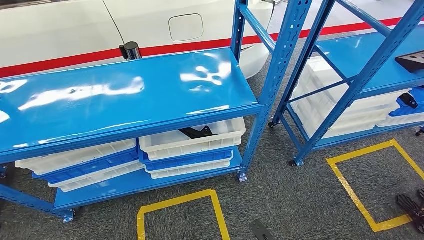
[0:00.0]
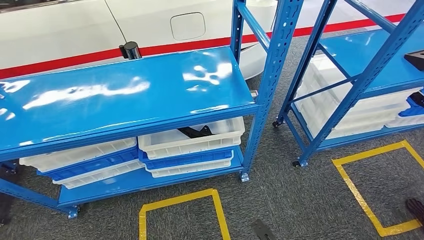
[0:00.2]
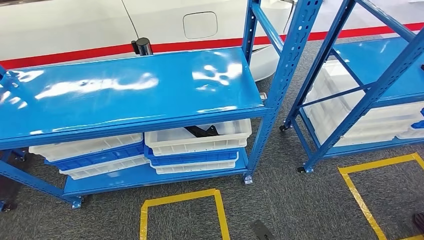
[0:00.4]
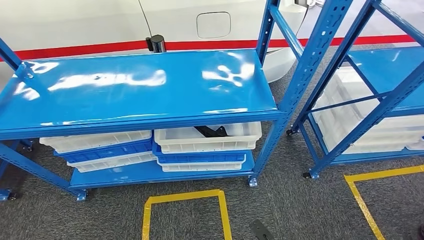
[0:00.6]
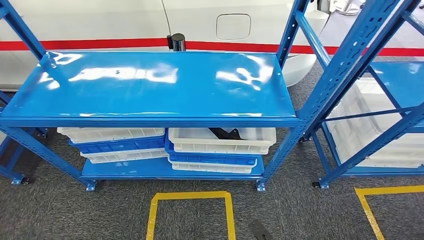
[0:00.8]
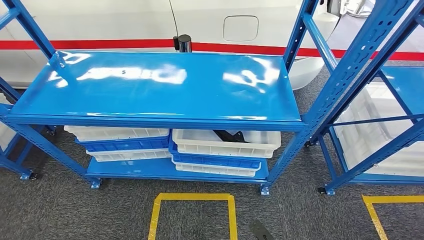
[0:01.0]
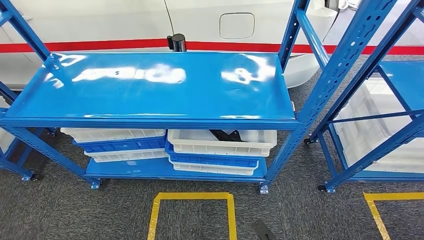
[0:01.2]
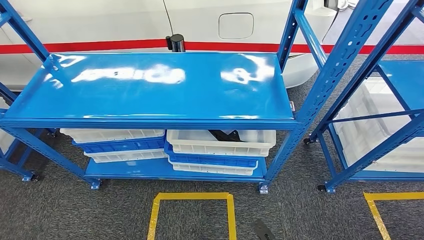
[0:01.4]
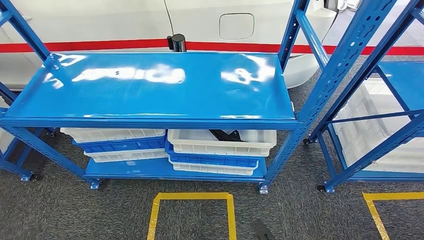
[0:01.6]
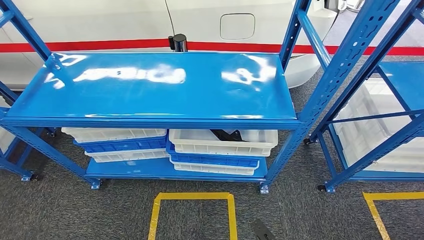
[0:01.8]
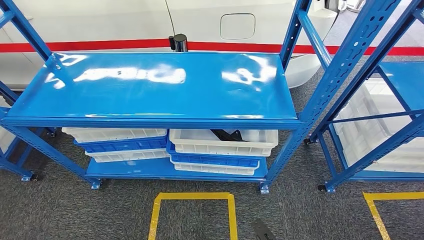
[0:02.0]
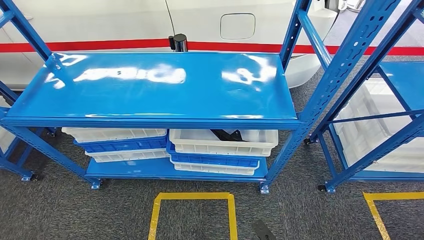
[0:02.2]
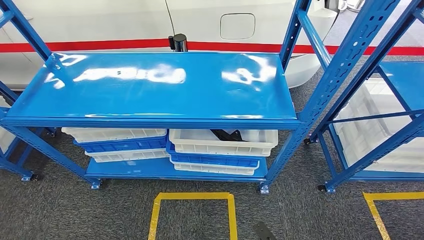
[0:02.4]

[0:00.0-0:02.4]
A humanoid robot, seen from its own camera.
Step, 0:00.0 to 0:02.4: Move to the initial position of the shelf.
0:01.2 to 0:02.4: There are only small adjustments of the hands.

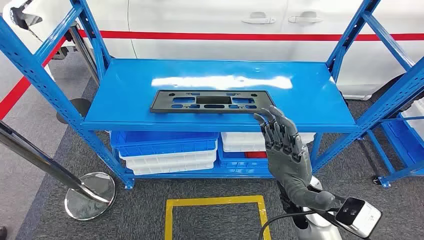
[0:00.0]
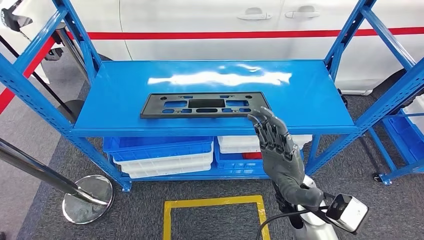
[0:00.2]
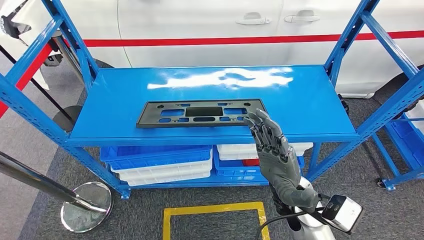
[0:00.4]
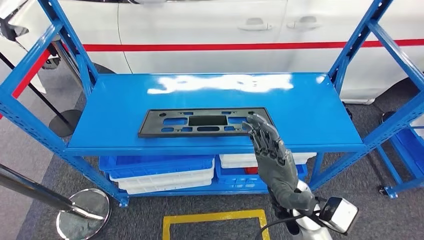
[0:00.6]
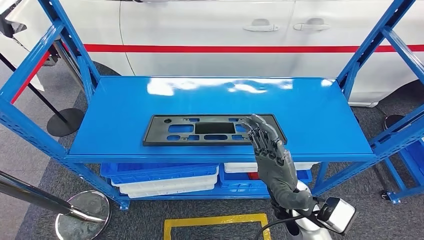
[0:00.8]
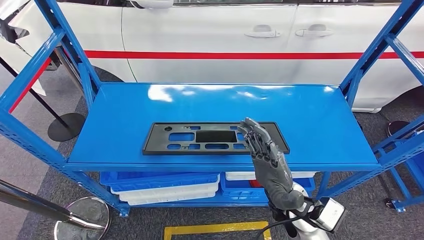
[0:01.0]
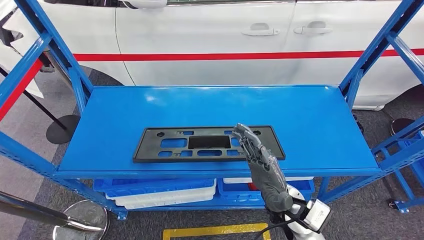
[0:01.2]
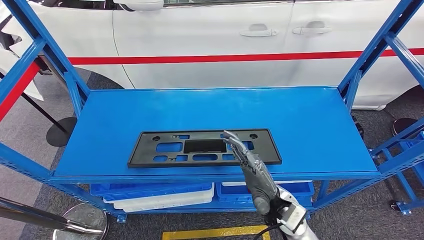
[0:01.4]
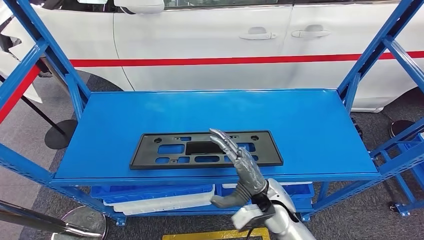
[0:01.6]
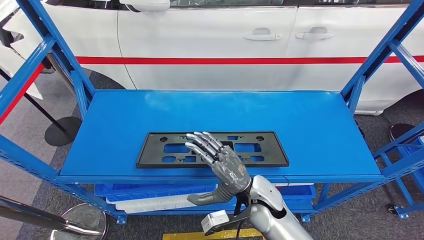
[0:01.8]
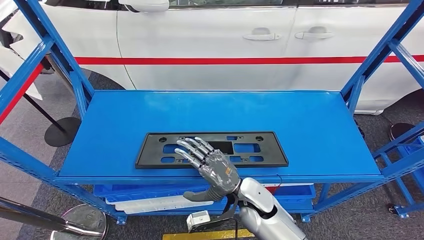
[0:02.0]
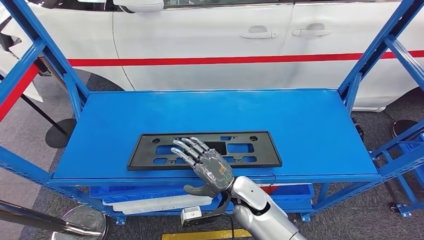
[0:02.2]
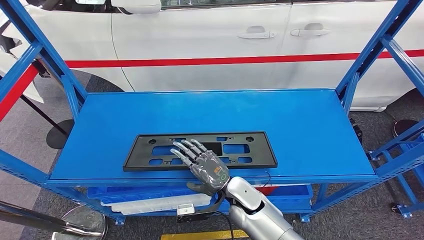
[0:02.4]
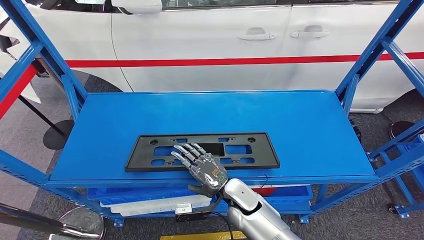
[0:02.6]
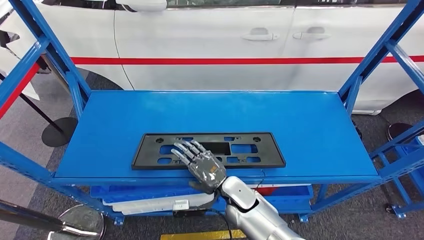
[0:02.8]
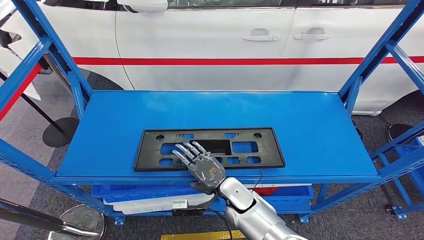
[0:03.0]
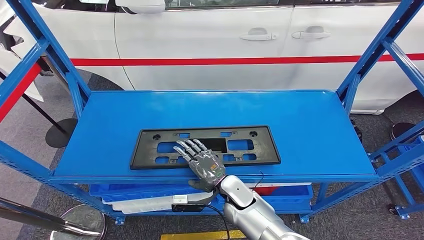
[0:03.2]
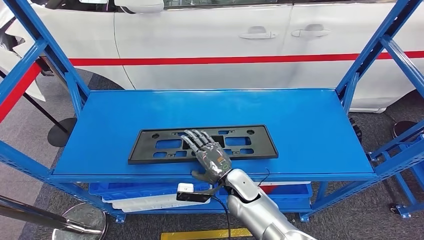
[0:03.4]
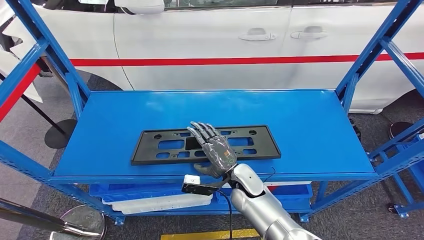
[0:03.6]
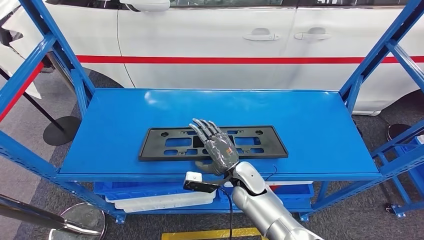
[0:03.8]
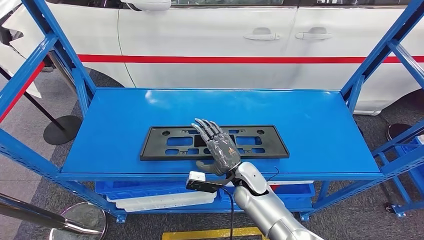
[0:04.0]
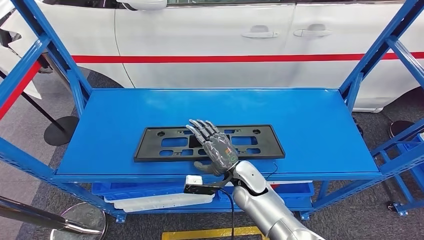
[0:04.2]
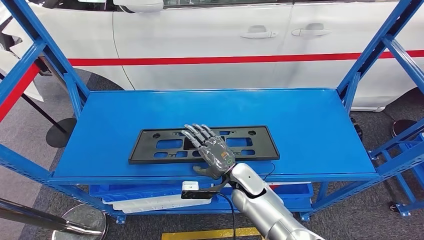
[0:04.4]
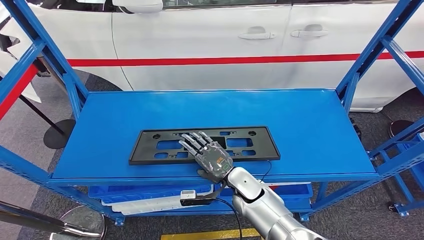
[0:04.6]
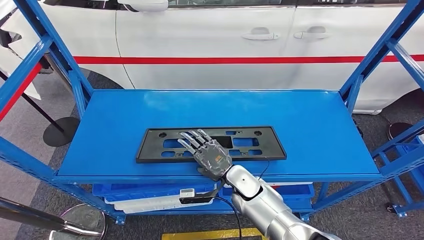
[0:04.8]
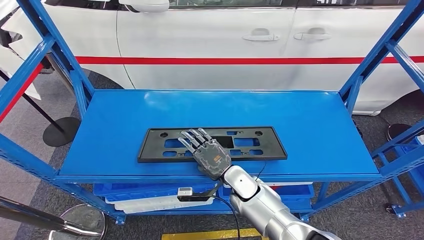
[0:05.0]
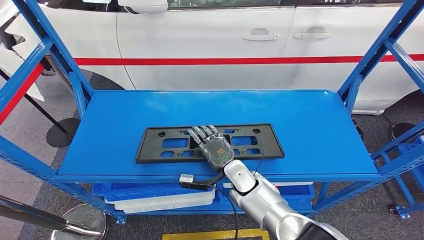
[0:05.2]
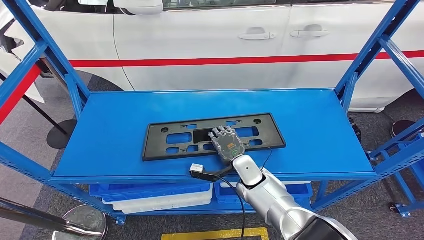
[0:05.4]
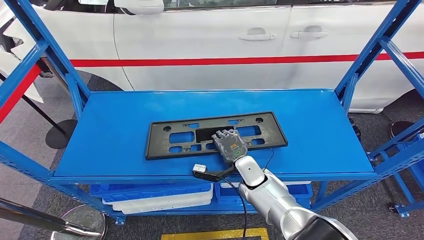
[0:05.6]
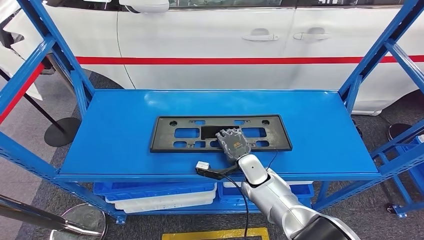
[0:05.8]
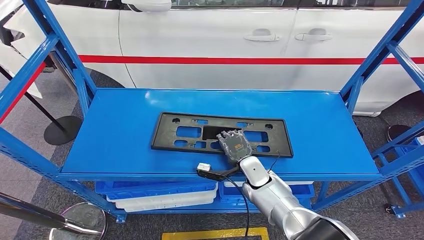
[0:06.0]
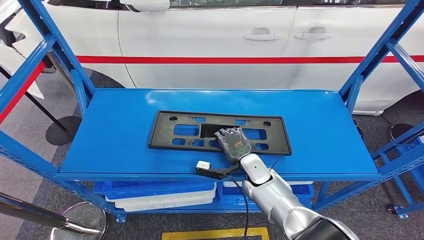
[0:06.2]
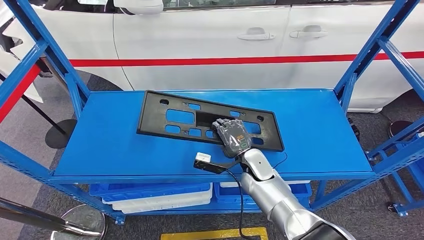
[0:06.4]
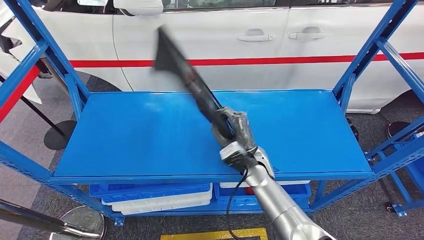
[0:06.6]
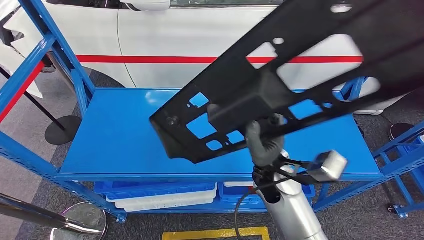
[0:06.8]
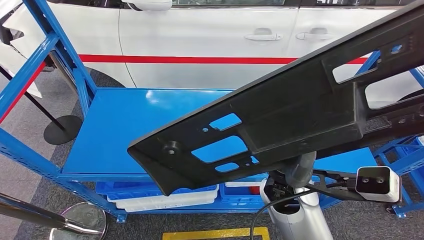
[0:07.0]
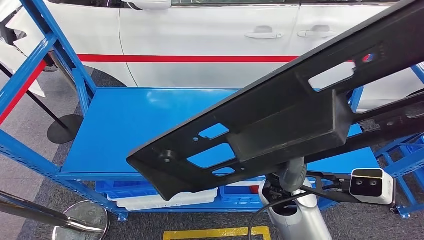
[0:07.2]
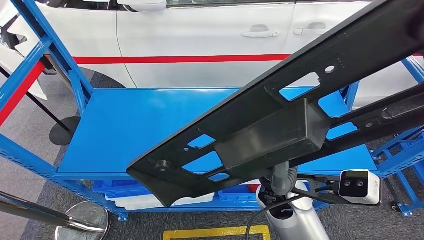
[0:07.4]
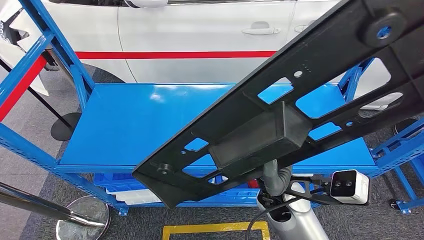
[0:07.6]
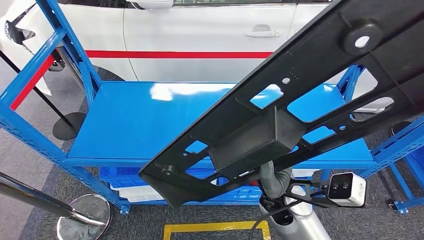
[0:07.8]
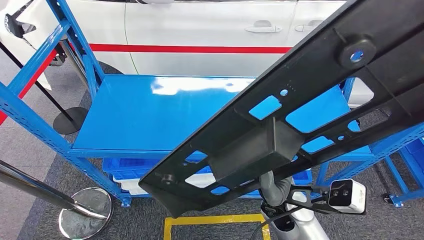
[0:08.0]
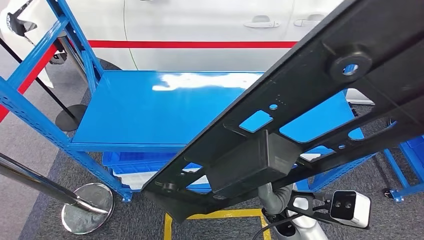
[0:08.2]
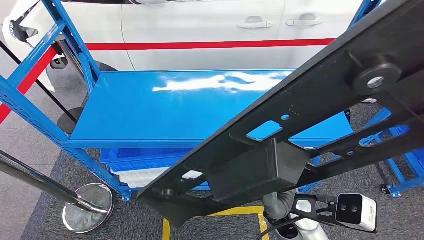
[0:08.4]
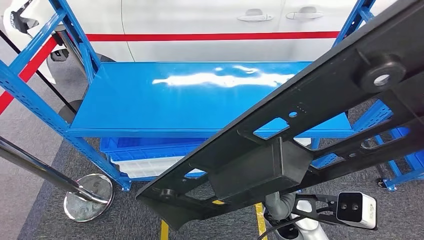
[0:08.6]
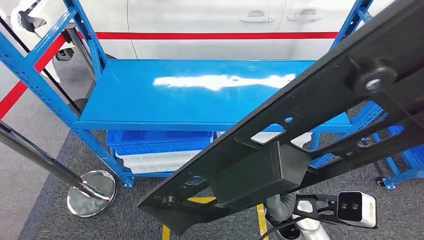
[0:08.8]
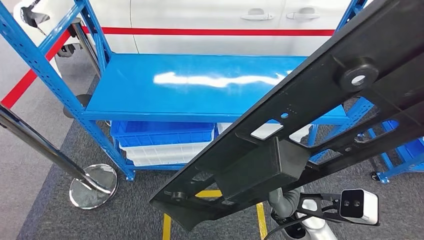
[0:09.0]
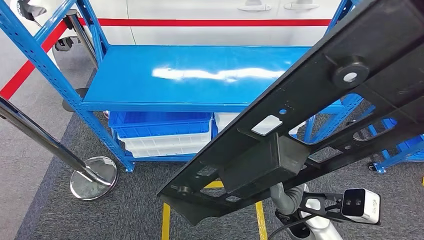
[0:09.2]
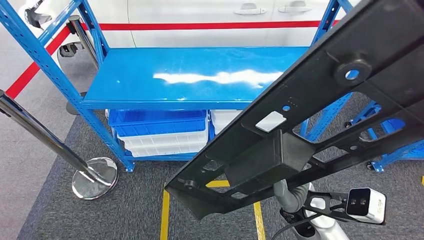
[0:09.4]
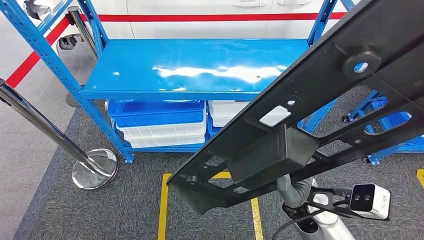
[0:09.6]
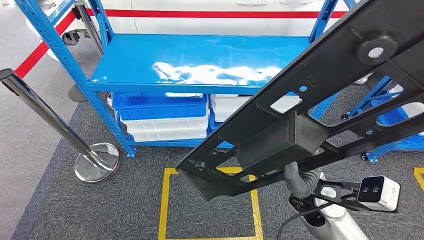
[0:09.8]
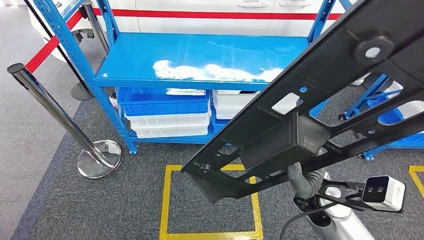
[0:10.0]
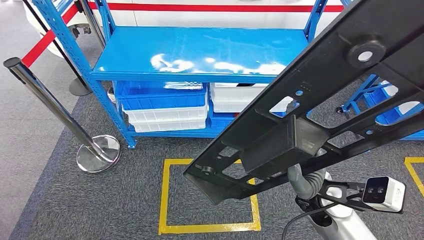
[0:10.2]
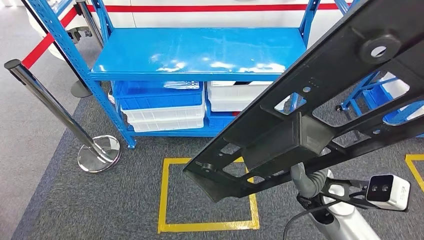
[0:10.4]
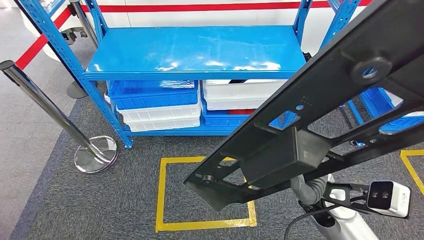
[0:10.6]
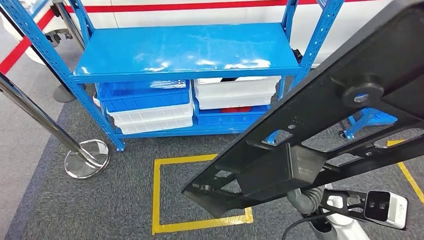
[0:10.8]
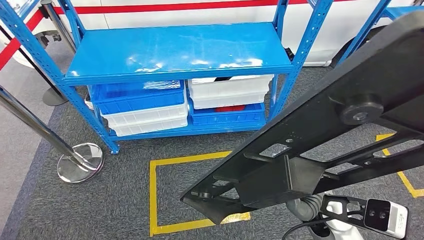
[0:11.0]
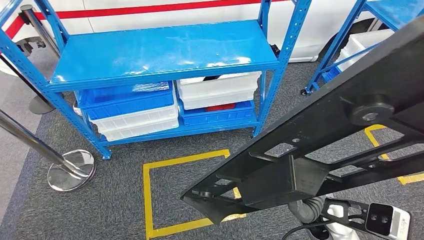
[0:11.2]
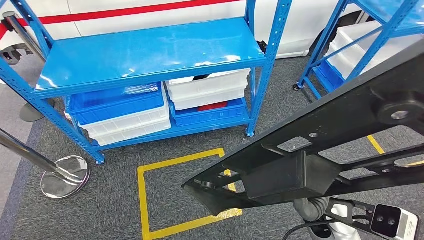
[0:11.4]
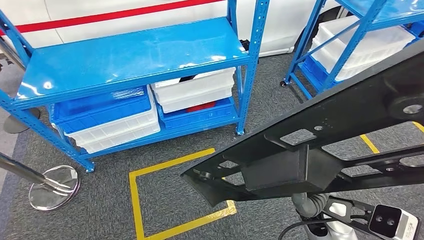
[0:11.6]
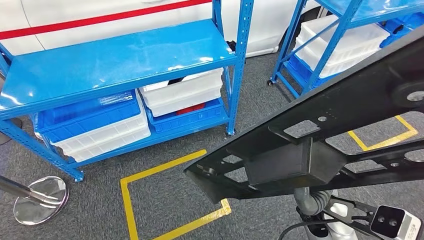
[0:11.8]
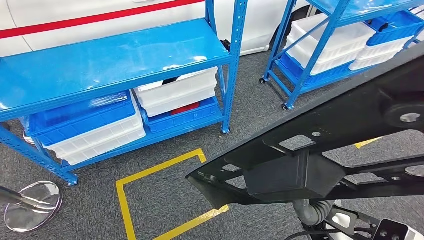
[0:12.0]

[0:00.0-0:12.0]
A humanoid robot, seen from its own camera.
Step, 0:00.0 to 0:06.4: Pick up the large material from the shelf.

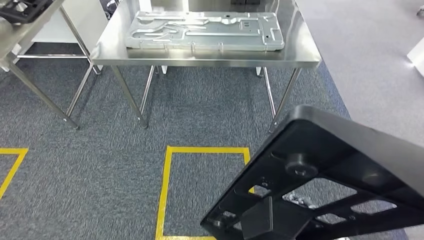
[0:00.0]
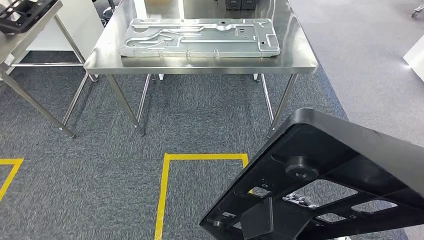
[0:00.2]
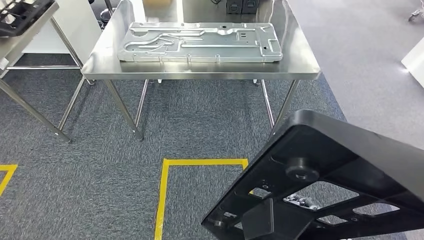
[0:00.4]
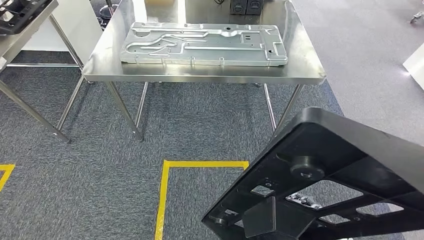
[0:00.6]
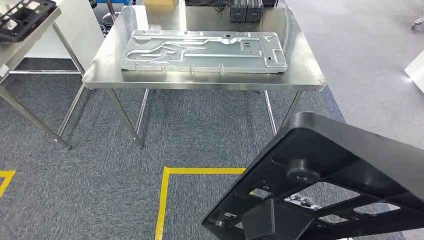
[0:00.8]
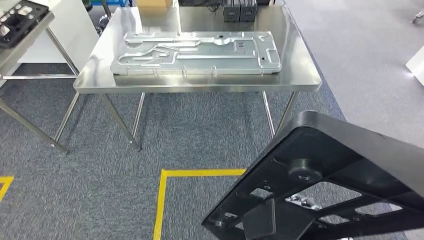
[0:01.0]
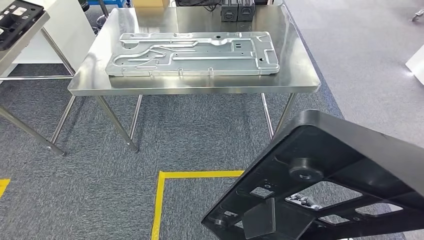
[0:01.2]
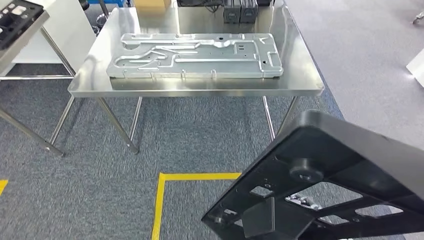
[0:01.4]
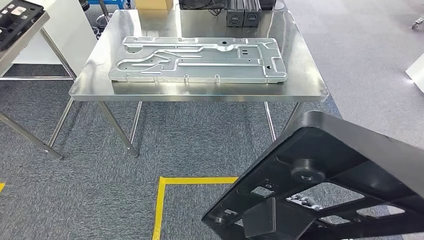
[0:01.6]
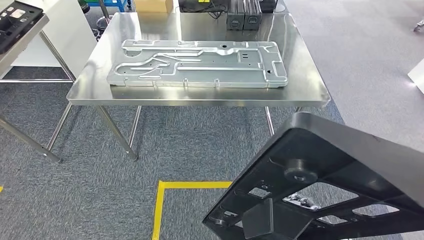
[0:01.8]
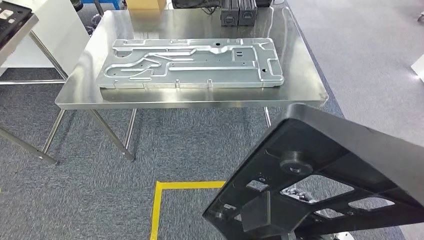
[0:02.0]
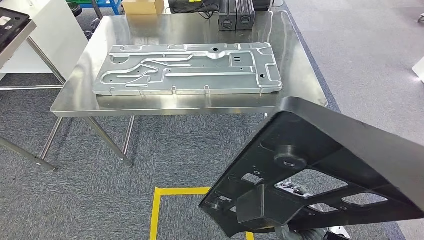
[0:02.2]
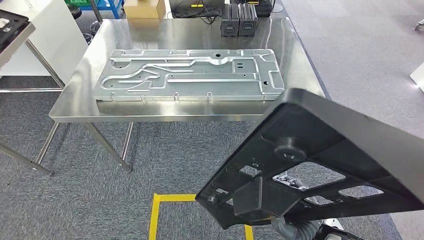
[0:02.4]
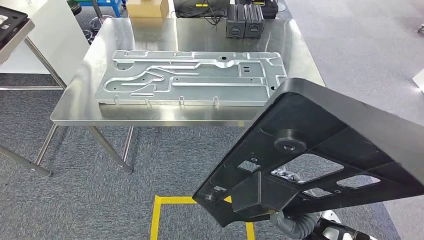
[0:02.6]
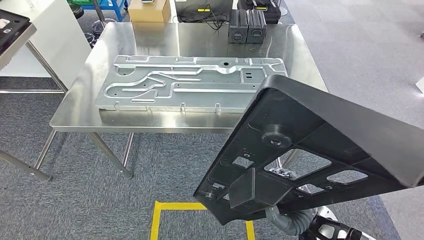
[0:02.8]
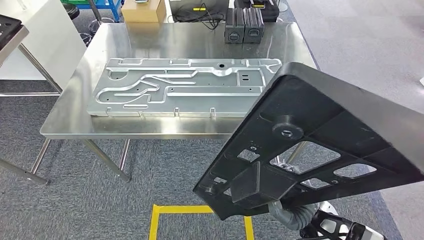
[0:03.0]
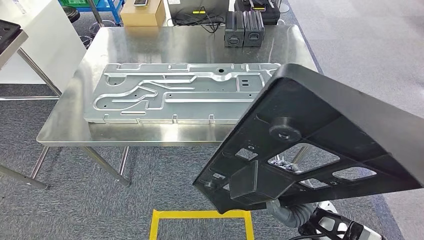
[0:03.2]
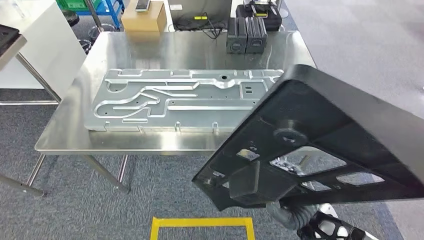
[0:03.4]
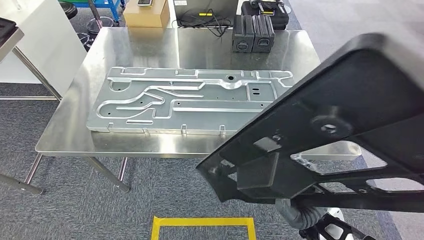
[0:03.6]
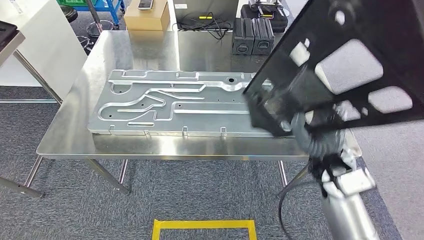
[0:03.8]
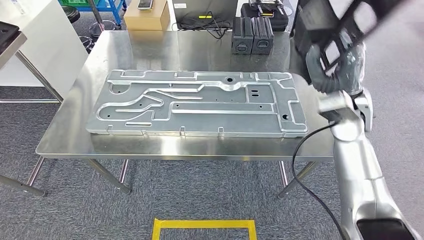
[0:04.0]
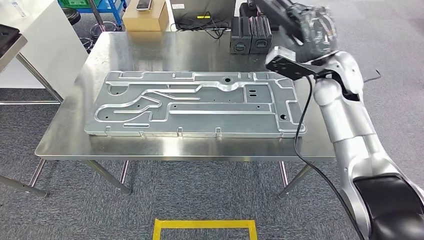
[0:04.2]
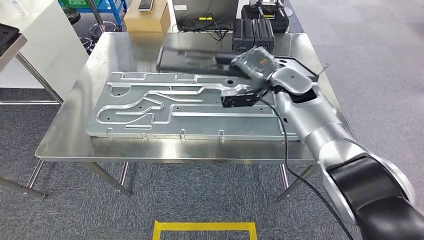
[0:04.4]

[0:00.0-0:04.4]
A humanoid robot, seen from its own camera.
Step, 0:00.0 to 0:03.8: Move the large material to the workbench.
